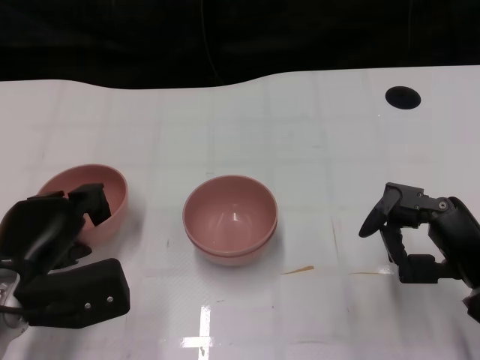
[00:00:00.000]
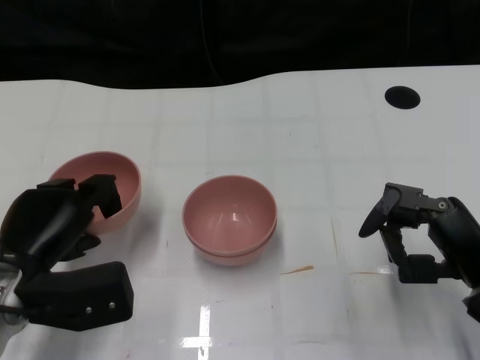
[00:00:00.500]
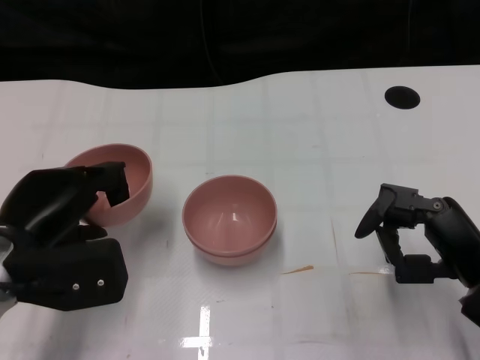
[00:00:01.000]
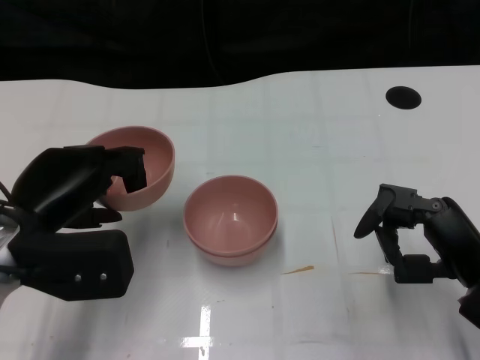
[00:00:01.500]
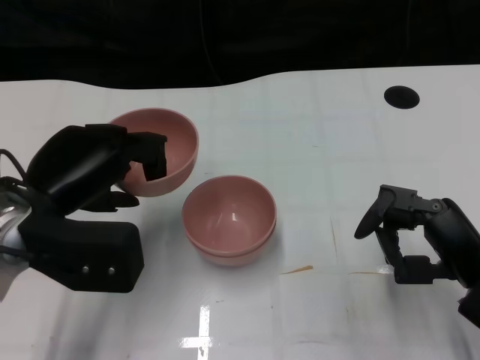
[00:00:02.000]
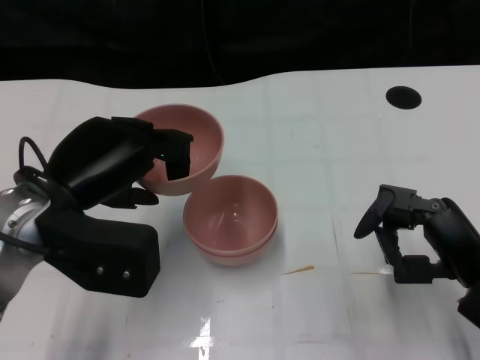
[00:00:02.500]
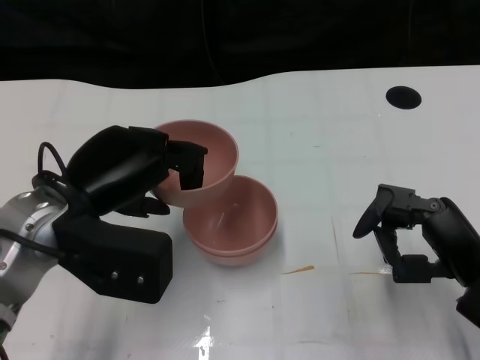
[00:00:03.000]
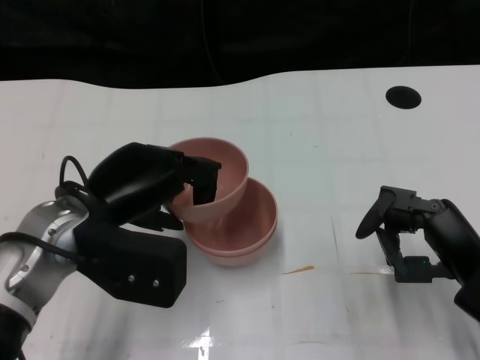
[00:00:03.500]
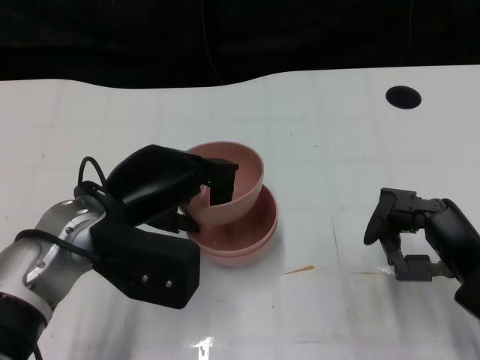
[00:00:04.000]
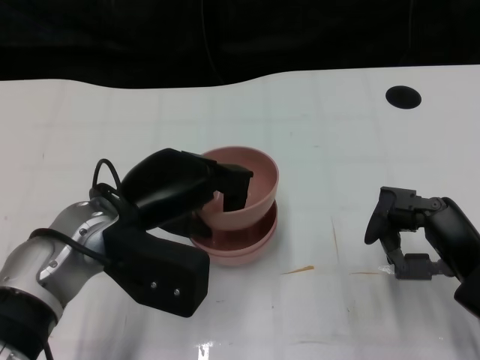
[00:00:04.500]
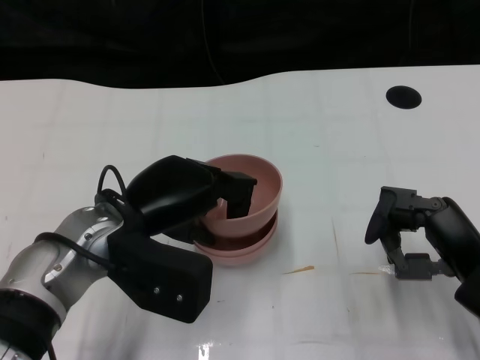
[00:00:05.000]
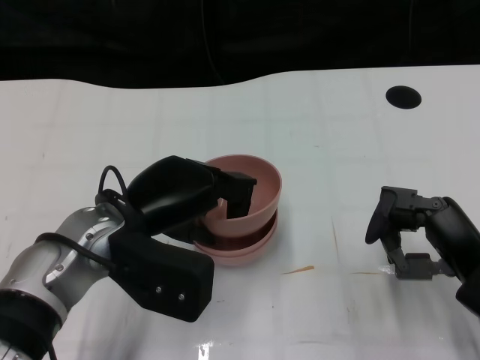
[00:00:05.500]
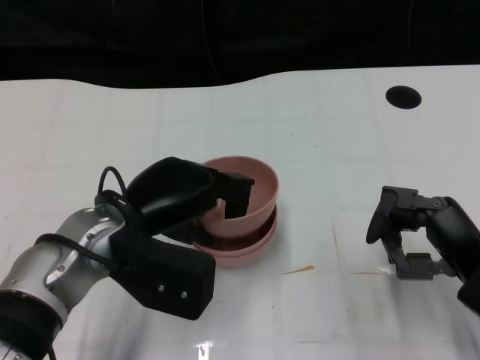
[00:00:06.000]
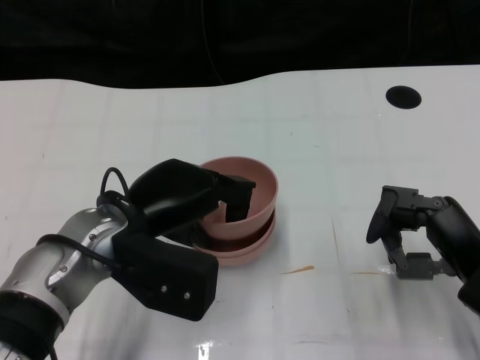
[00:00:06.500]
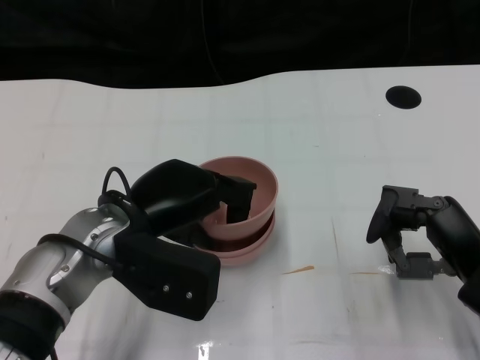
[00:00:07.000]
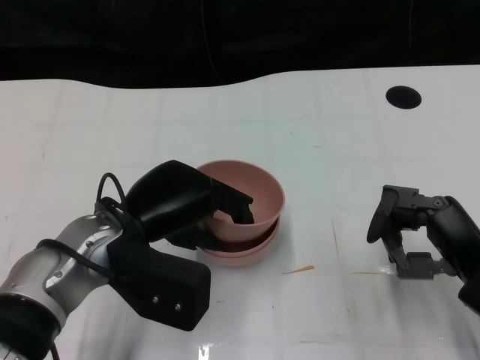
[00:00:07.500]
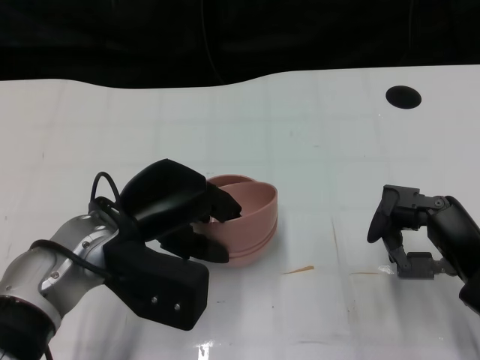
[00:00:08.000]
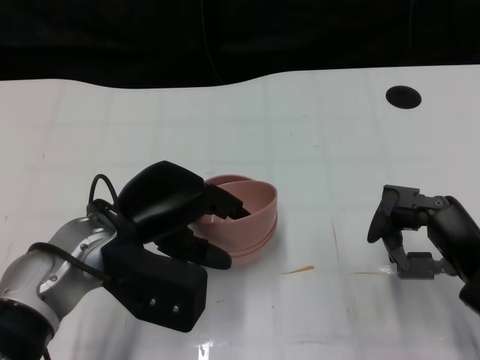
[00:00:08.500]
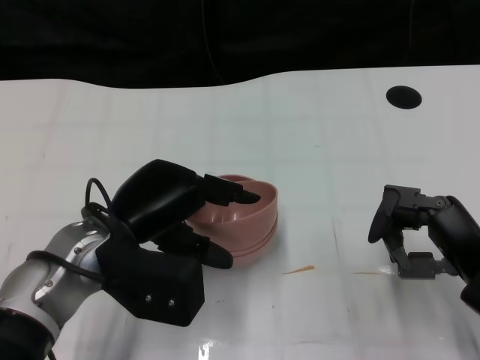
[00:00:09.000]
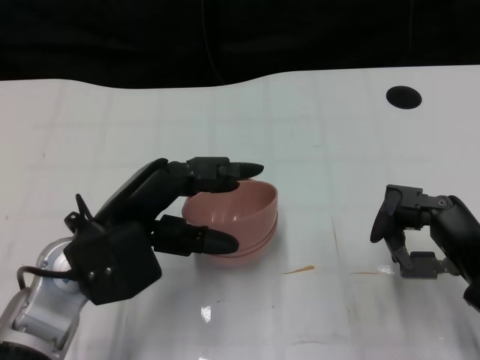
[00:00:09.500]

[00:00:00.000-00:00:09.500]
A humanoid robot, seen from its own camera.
Task of the whole recording: Pick up the bowl on one side of the table and place it on top of the middle bowl, then pick up the bowl on the other side of the table and place it on top of the middle bowls.
Step, 00:00:01.000 to 00:00:09.000: Place the bowl on the left onto the bowl in the middle with left gripper.
00:00:00.000 to 00:00:02.000: The left hand travels upward by approximately 10 cm.
00:00:02.000 to 00:00:04.000: The left hand heads to the right, covering approximately 5 cm.
00:00:04.000 to 00:00:05.500: The hands stay close to where they were, moving slightly.
00:00:05.500 to 00:00:07.500: Both hands stay put.

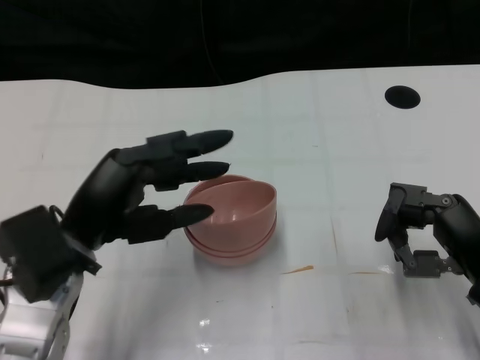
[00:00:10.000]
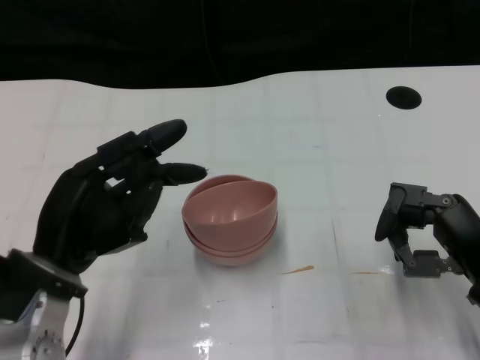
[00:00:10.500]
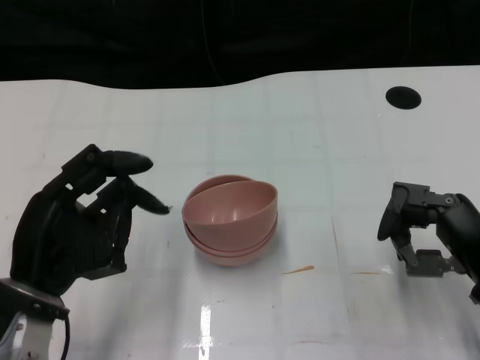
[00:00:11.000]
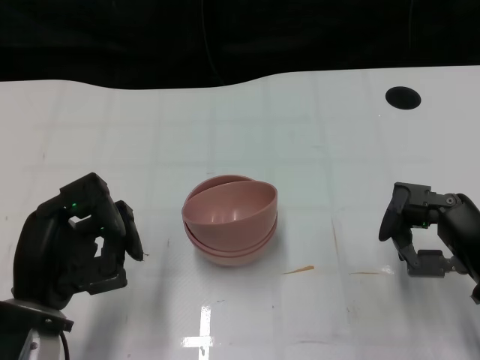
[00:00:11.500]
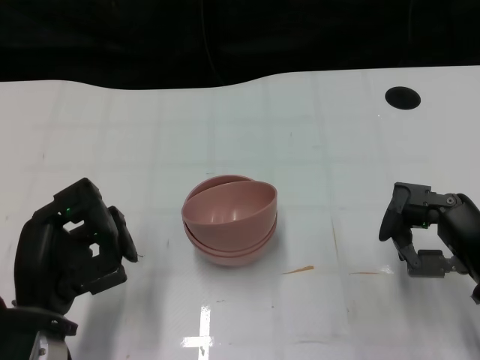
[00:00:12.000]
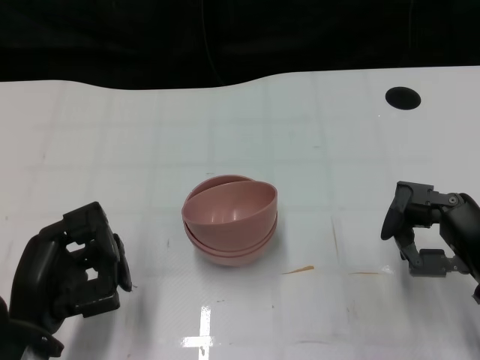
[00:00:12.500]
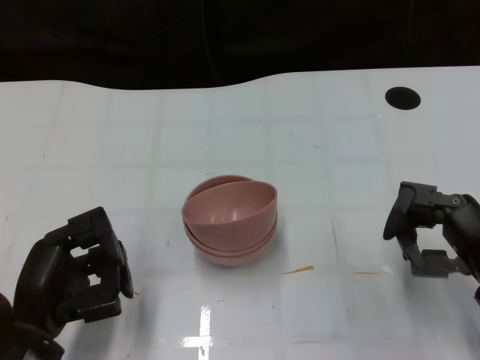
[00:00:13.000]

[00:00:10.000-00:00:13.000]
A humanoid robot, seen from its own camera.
Task of the whole recording: Pick up the bowl on one side of the table and place it on top of the middle bowl, then pick up the bowl on the other side of the table and place it on top of the middle bowls.
00:00:10.000 to 00:00:11.500: The left hand travels downward by roughly 5 cm.
00:00:11.500 to 00:00:13.000: The hands move only a little.

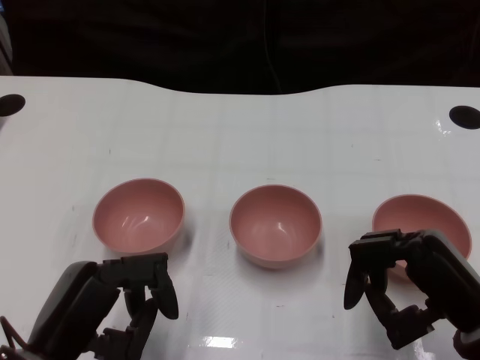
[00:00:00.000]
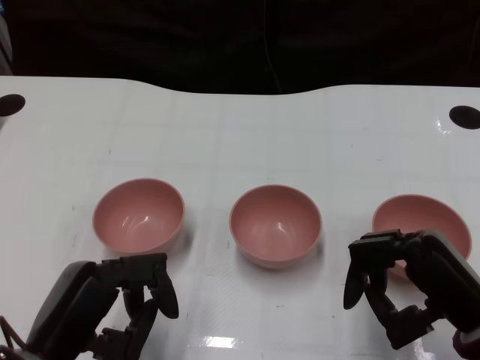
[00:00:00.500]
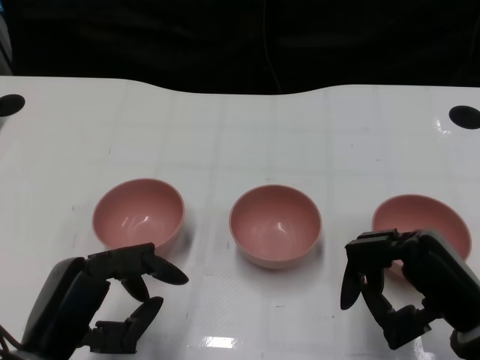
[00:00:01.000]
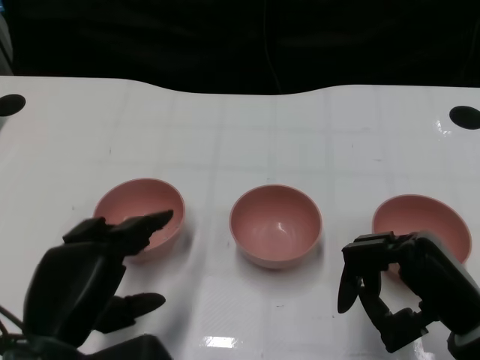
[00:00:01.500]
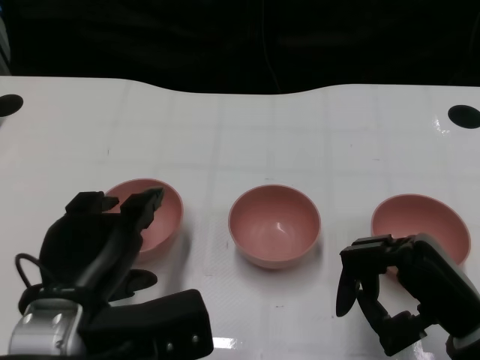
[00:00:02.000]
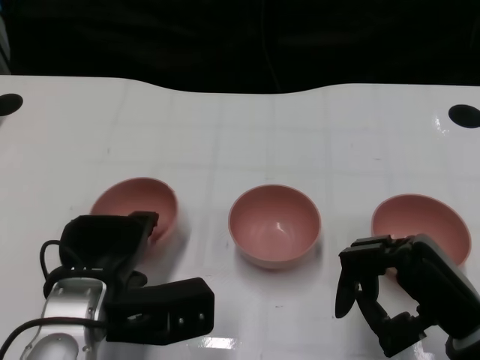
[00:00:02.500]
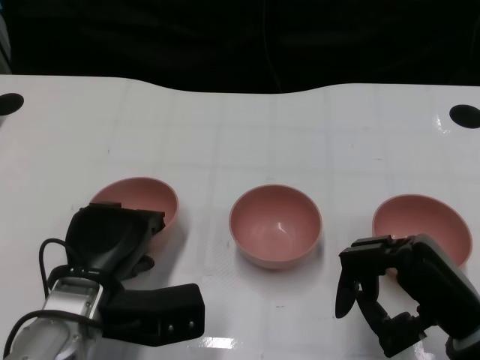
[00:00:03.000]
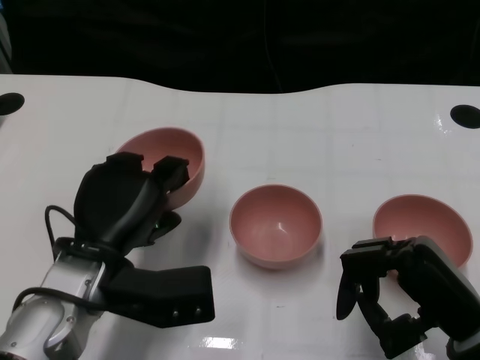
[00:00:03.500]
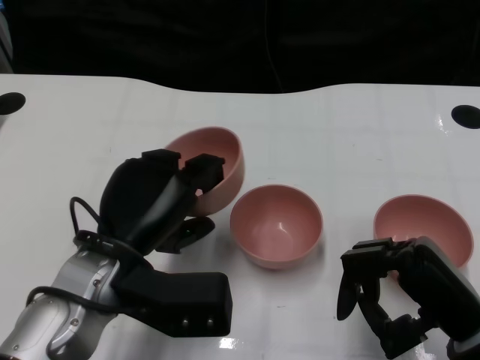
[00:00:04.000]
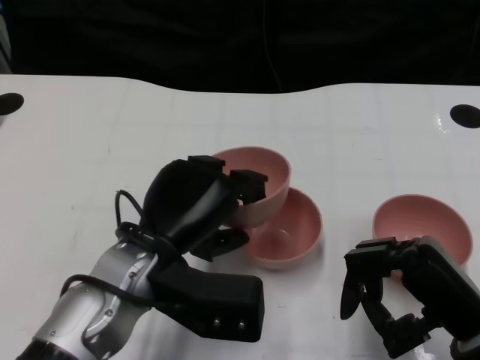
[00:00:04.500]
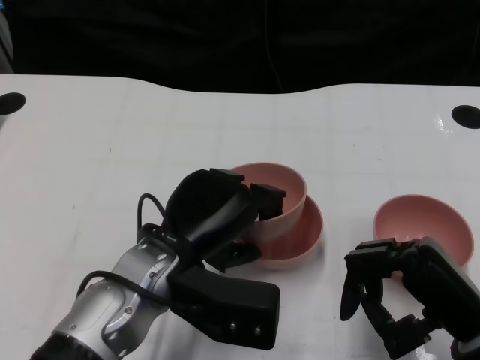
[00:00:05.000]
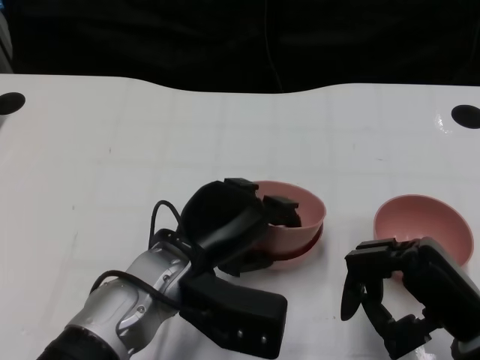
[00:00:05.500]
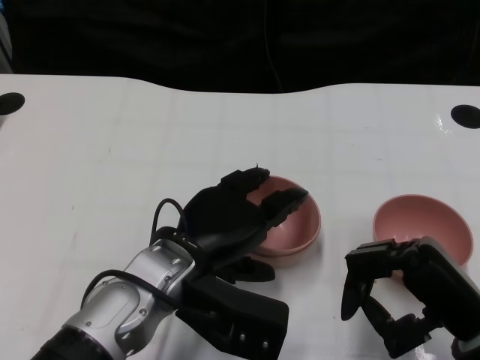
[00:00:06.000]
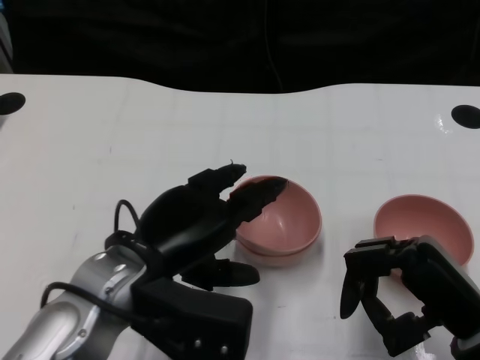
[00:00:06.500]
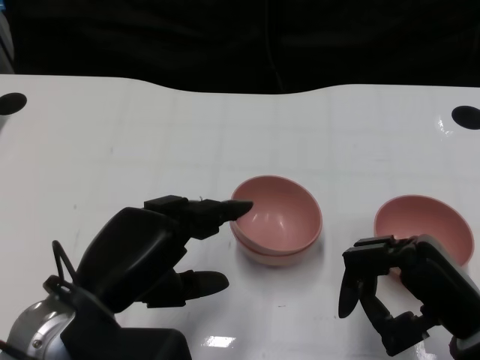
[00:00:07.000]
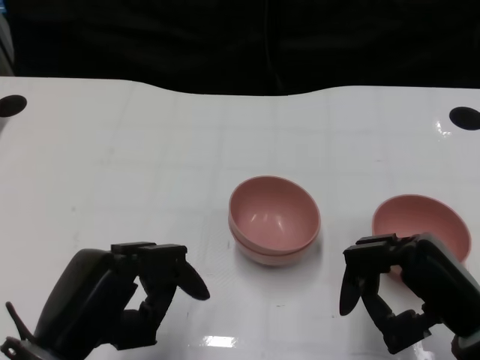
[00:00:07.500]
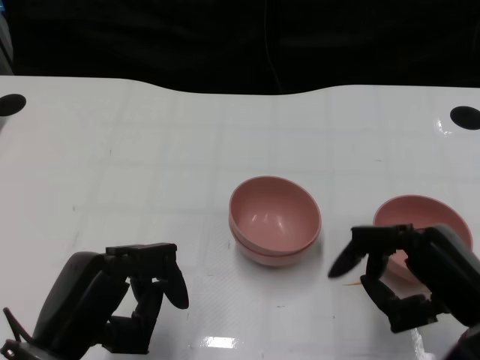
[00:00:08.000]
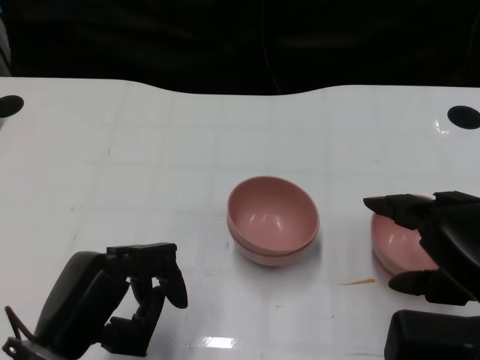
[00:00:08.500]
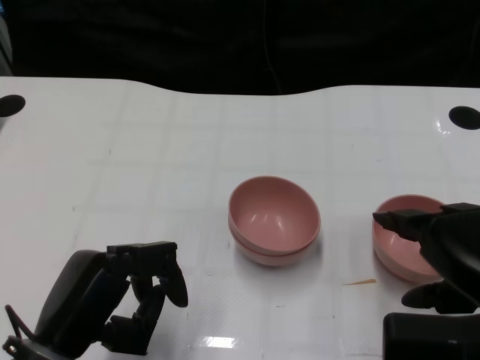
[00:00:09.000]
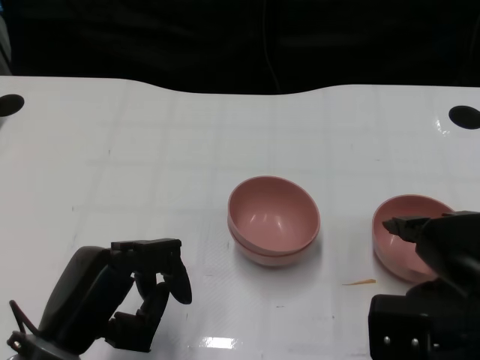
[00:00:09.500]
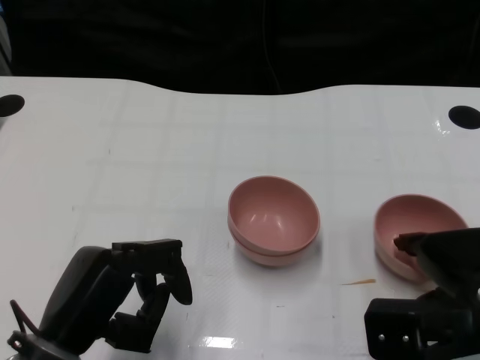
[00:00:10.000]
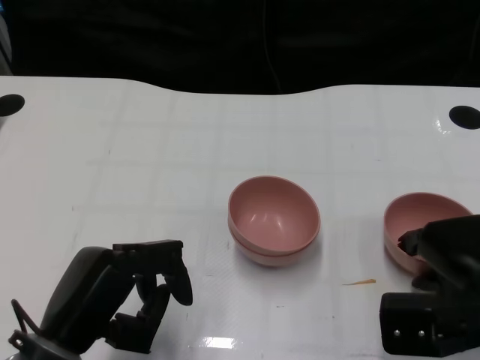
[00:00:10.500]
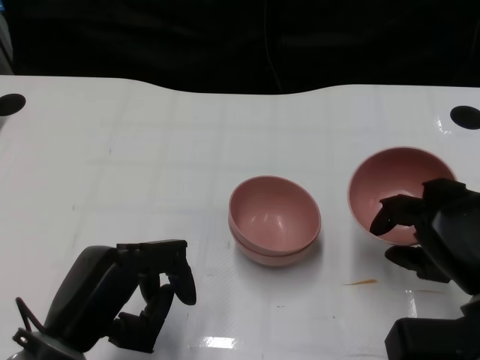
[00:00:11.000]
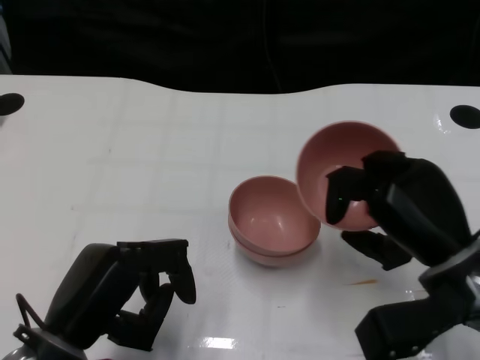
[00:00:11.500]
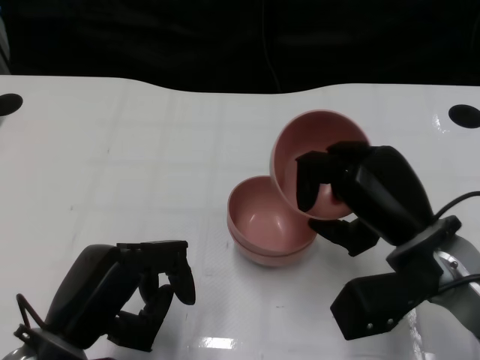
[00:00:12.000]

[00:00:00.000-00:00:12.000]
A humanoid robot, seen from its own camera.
Task of the whole recording: Pick up the bowl on one side of the table and place it on top of the middle bowl, then pick up the bowl on the other side of the table and place it on top of the middle bowls.
Step, 00:00:01.000 to 00:00:03.000: Grasp the bowl on the left with the left gripper.
Step, 00:00:03.500 to 00:00:06.000: Place the bowl on the left onto the bowl in the middle with left gripper.
Step, 00:00:06.500 to 00:00:10.500: Grasp the bowl on the right with the right gripper.
00:00:02.000 to 00:00:04.000: The left hand goes some 5 cm forward.
00:00:04.000 to 00:00:06.000: The left hand goes some 5 cm to the right.
00:00:06.000 to 00:00:08.000: The left hand is displaced to the left and backward by about 15 cm.
00:00:10.000 to 00:00:12.000: The right hand is displaced to the left by some 5 cm.
